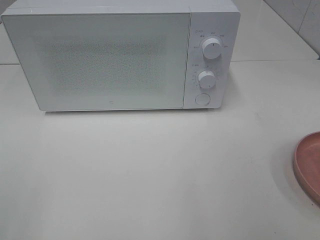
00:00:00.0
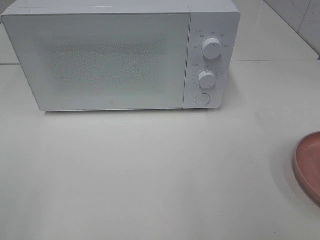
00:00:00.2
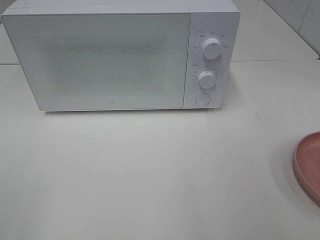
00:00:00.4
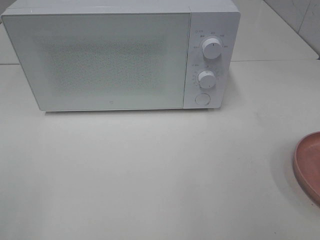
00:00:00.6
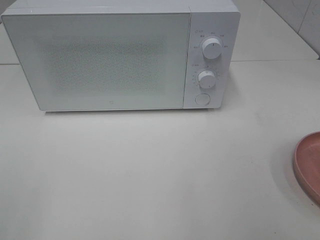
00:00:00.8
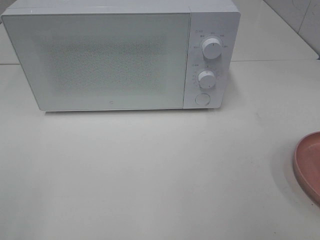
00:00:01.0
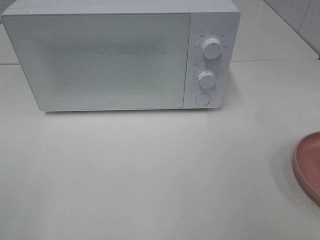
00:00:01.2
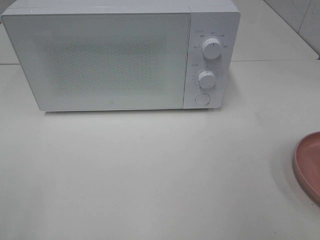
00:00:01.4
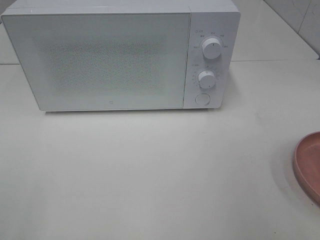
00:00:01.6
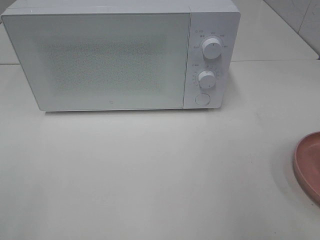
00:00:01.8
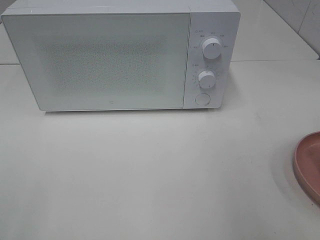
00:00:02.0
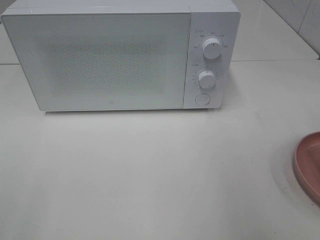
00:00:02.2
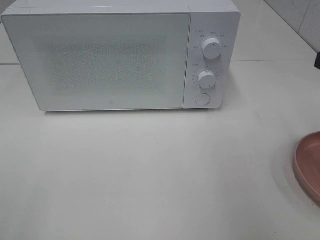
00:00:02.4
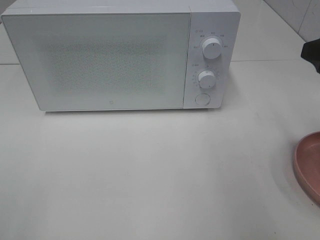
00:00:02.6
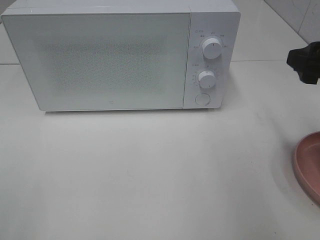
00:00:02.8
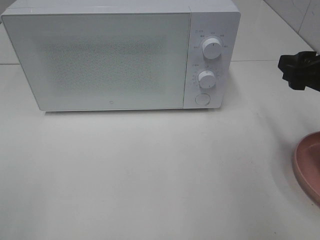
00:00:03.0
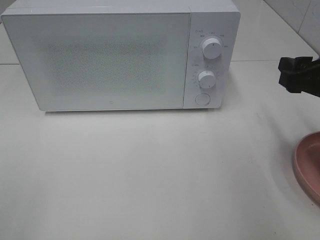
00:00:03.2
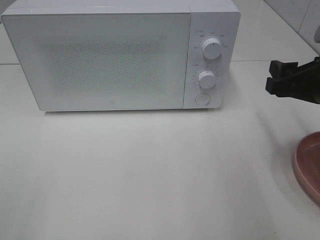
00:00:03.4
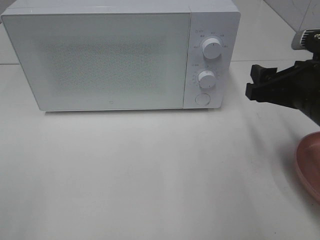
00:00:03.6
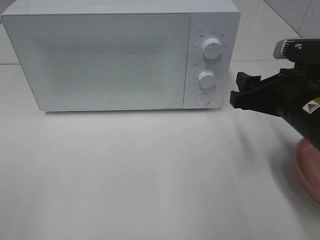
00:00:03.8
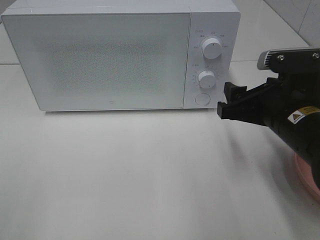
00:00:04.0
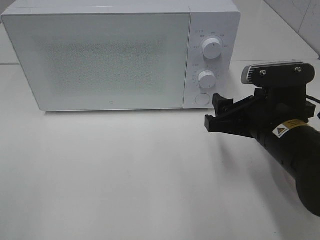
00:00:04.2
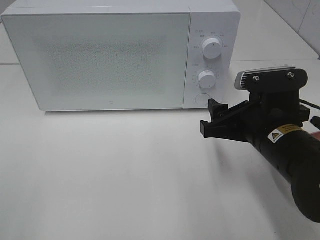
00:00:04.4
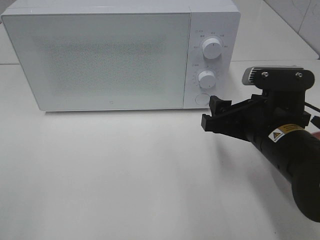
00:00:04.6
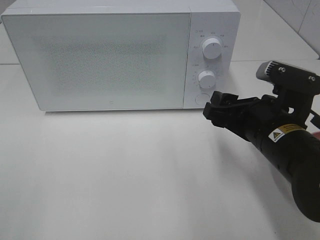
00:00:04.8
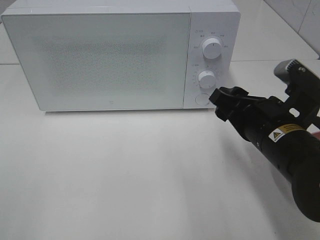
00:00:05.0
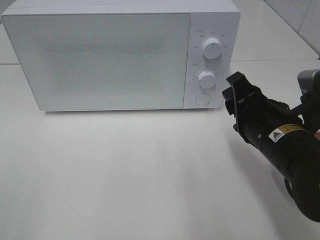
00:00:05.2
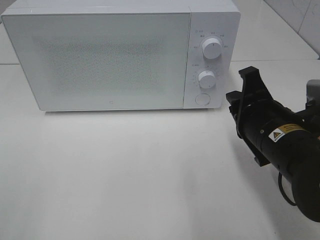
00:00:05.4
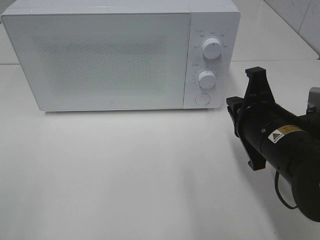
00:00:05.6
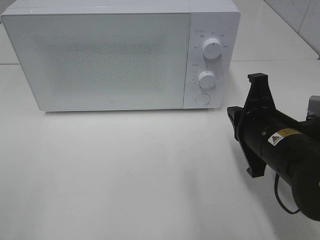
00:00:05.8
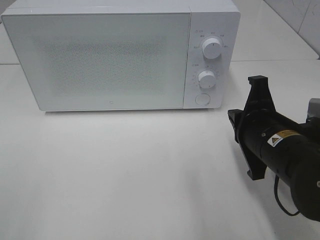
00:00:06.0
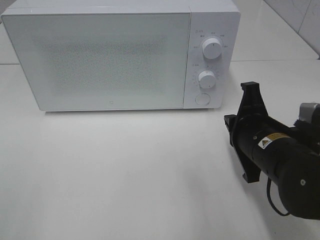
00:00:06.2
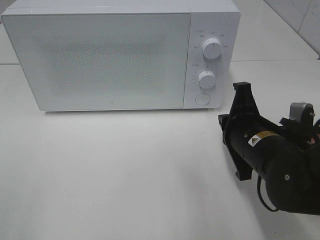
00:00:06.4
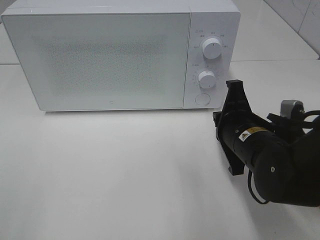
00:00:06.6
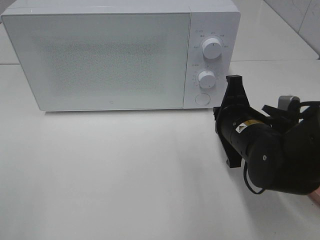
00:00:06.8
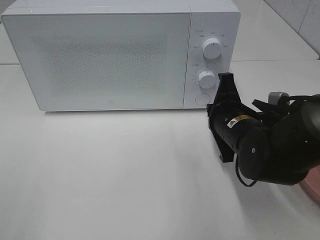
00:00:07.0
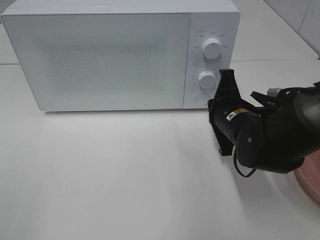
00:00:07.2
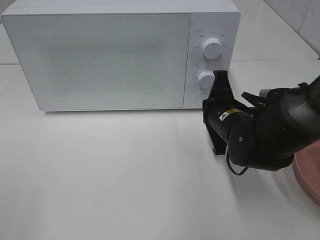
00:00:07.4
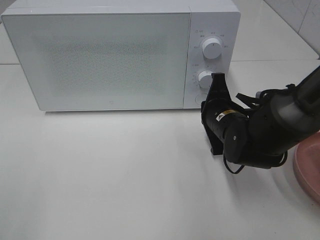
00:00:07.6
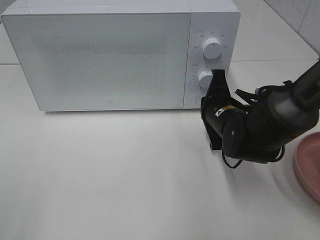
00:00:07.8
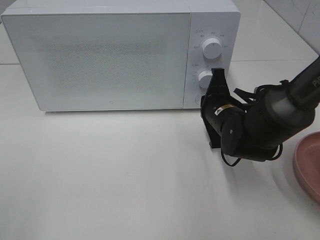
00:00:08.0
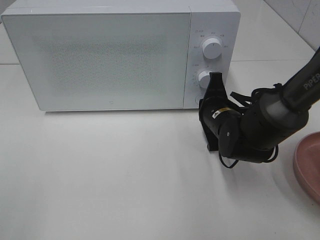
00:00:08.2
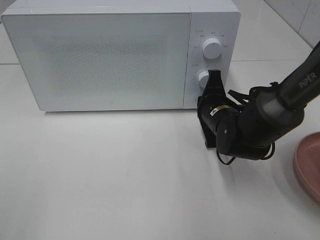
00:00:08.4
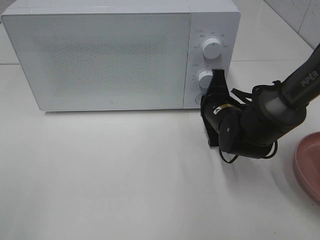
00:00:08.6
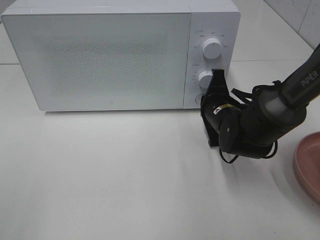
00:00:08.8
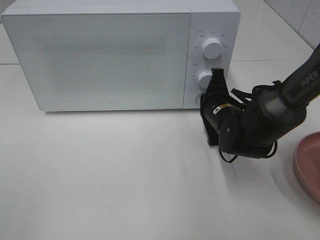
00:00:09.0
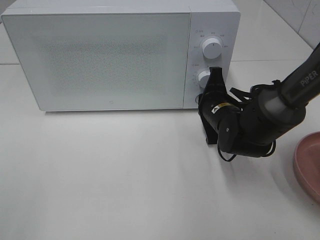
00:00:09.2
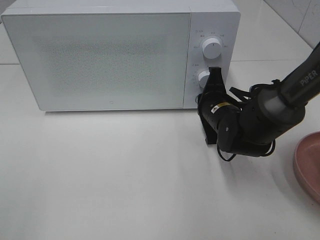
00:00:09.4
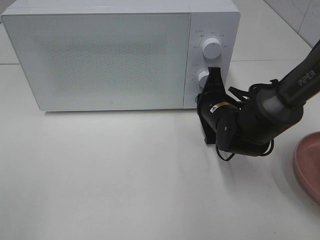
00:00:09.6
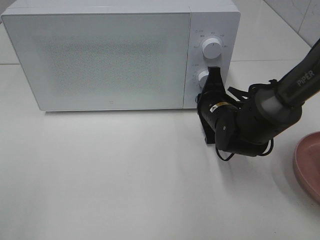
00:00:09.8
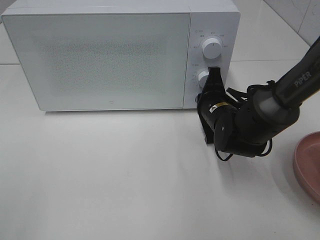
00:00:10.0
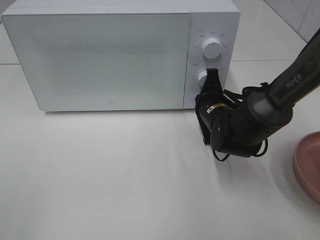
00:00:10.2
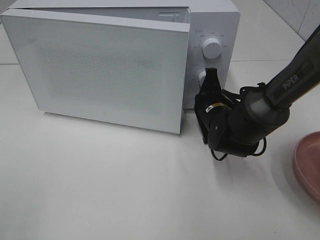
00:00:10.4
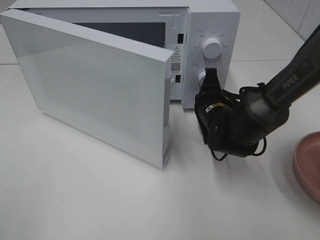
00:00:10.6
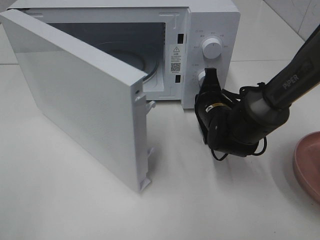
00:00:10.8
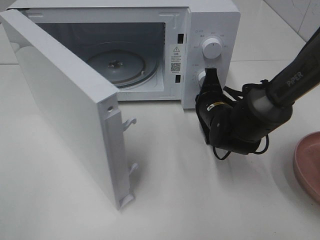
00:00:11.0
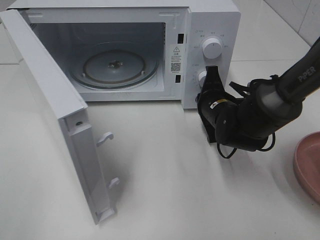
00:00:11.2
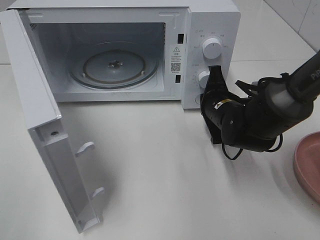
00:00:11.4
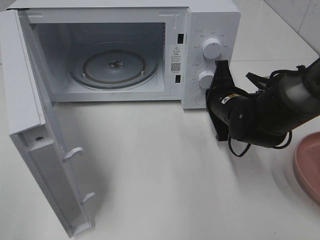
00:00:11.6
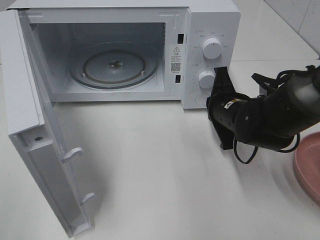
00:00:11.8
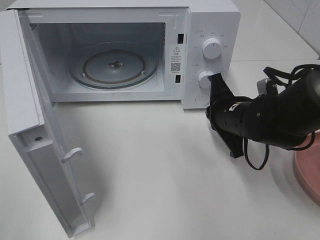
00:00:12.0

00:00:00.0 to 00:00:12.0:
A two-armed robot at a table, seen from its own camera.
Task of the whole recording: Heat the burger.
Step, 00:00:00.0 to 00:00:11.6: Right hand: press the switch.
00:00:01.6 to 00:00:03.0: The right gripper shifts some 20 cm forward and downward.
00:00:03.0 to 00:00:04.4: The right gripper moves to the left and downward, some 15 cm.
00:00:04.4 to 00:00:06.0: The right gripper closes.
00:00:06.0 to 00:00:07.6: The right gripper moves forward and downward, roughly 10 cm.
00:00:07.6 to 00:00:10.4: There are only small adjustments of the grippers.
00:00:10.4 to 00:00:12.0: The right gripper shifts by approximately 5 cm.

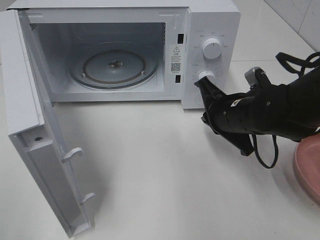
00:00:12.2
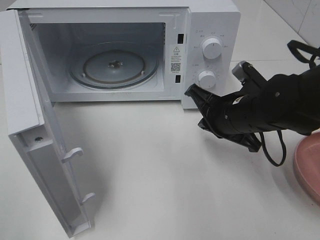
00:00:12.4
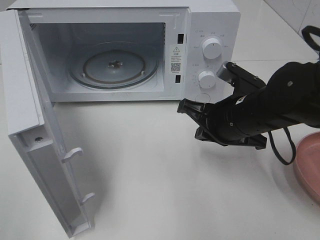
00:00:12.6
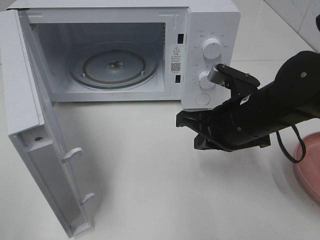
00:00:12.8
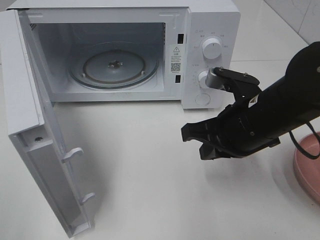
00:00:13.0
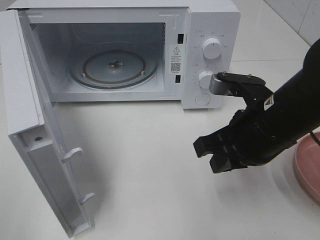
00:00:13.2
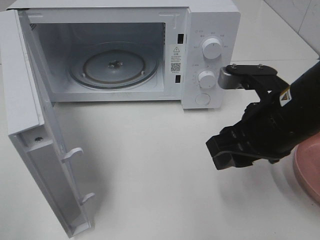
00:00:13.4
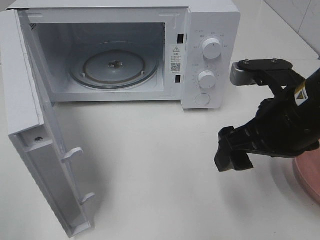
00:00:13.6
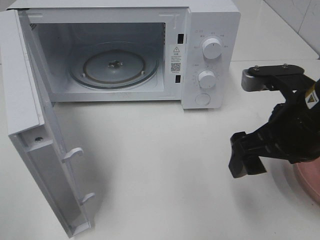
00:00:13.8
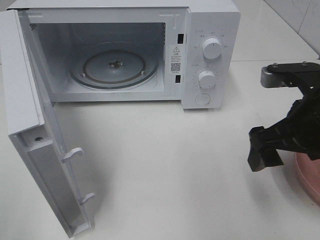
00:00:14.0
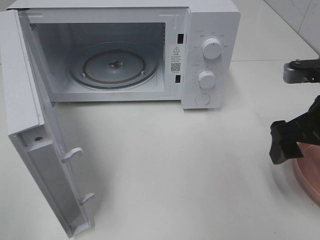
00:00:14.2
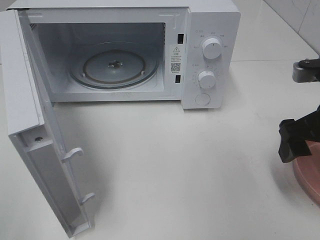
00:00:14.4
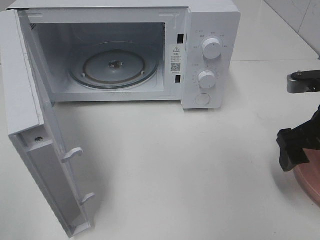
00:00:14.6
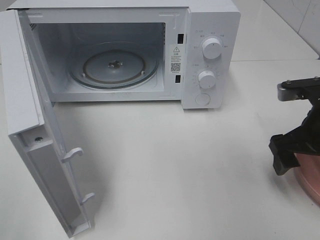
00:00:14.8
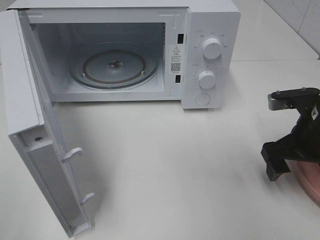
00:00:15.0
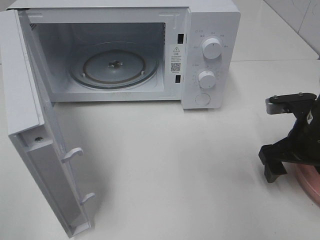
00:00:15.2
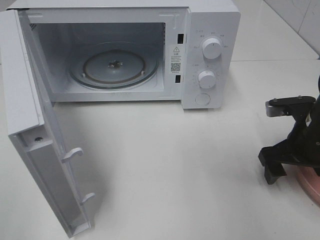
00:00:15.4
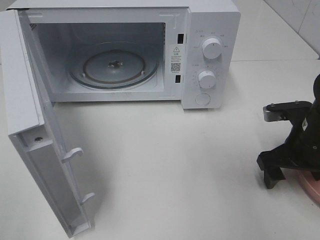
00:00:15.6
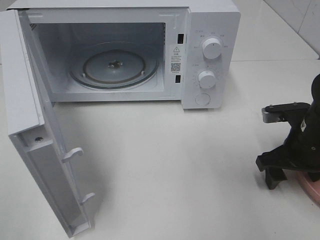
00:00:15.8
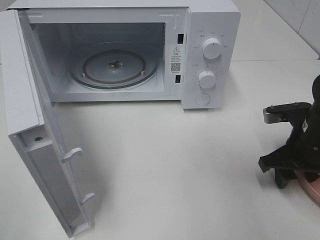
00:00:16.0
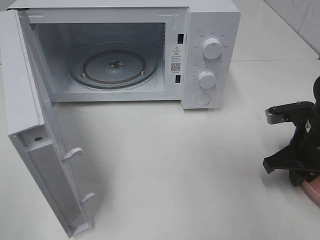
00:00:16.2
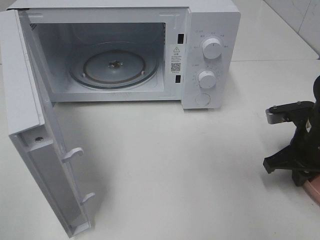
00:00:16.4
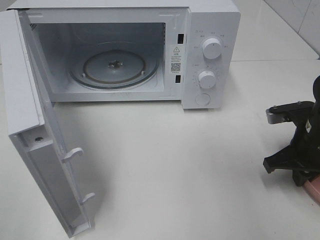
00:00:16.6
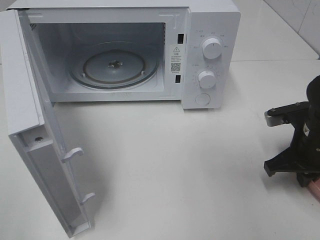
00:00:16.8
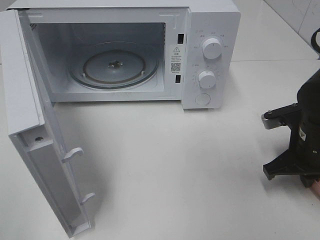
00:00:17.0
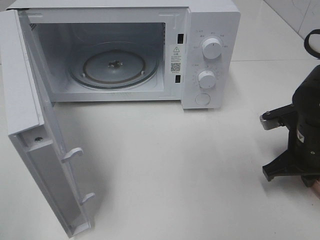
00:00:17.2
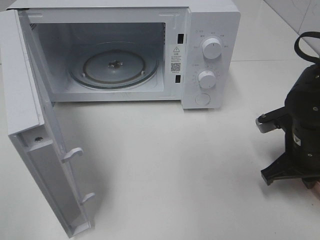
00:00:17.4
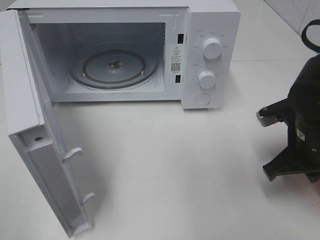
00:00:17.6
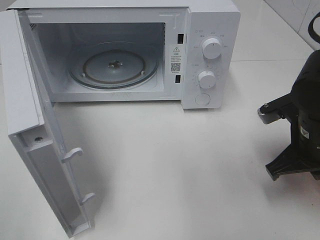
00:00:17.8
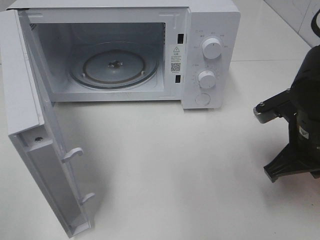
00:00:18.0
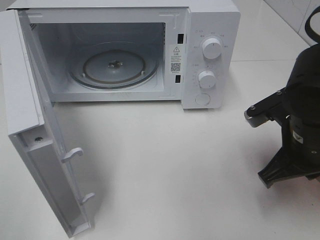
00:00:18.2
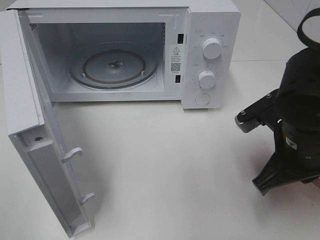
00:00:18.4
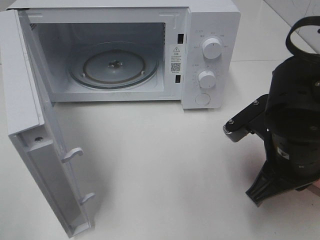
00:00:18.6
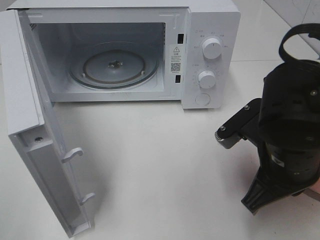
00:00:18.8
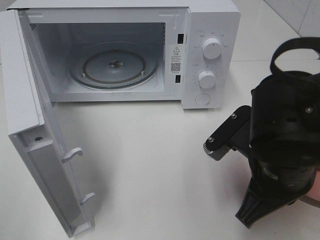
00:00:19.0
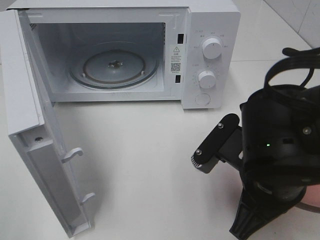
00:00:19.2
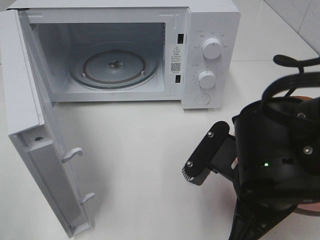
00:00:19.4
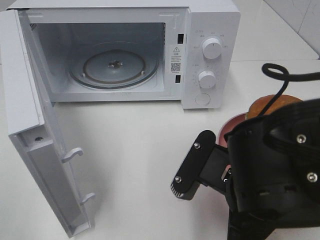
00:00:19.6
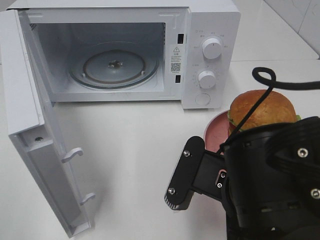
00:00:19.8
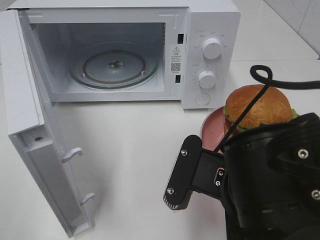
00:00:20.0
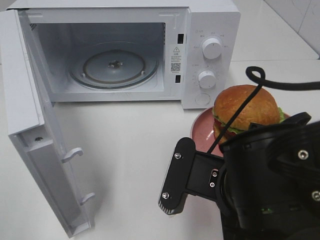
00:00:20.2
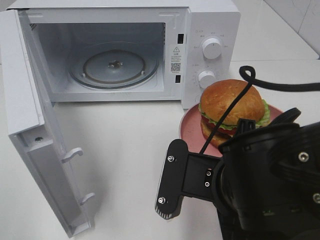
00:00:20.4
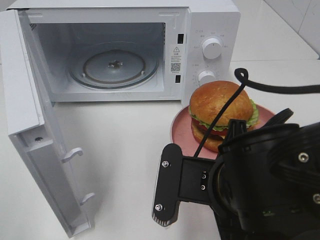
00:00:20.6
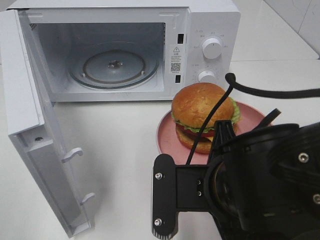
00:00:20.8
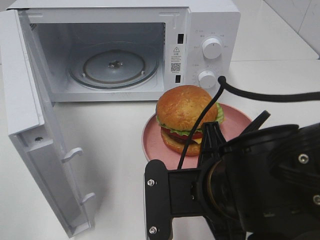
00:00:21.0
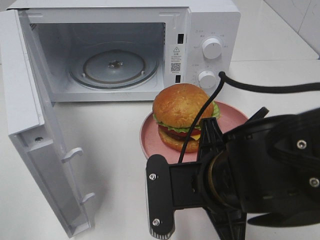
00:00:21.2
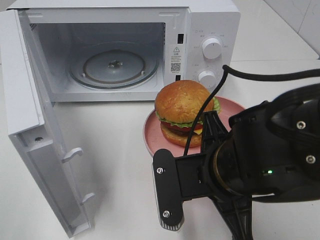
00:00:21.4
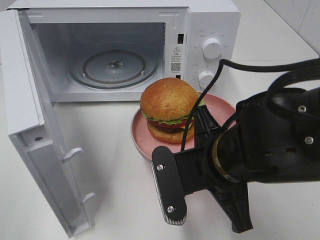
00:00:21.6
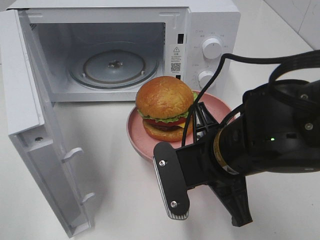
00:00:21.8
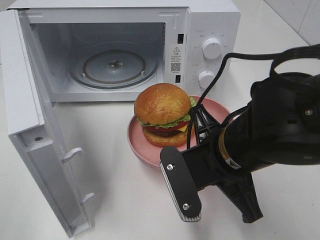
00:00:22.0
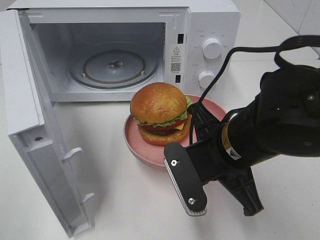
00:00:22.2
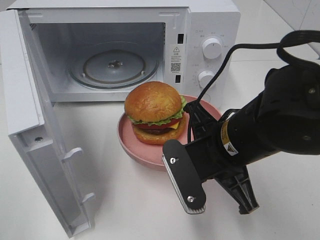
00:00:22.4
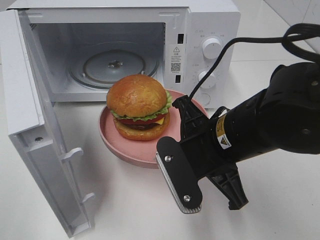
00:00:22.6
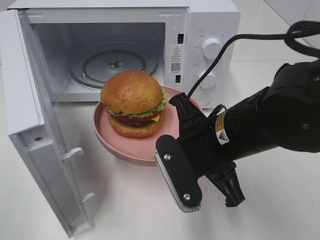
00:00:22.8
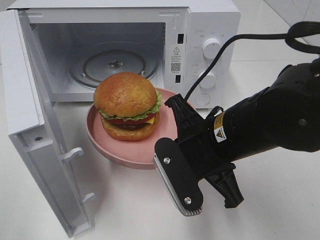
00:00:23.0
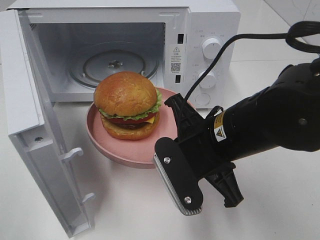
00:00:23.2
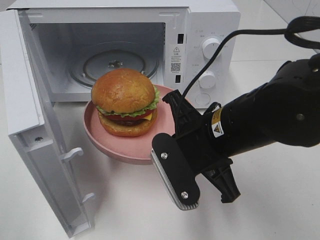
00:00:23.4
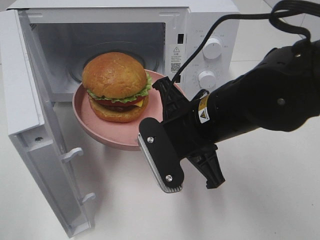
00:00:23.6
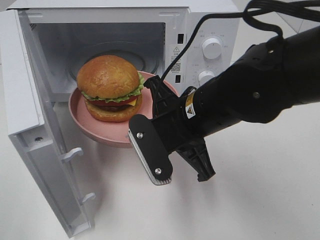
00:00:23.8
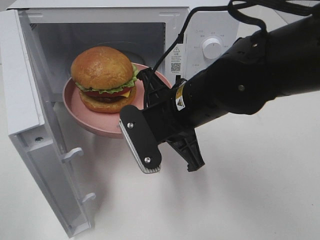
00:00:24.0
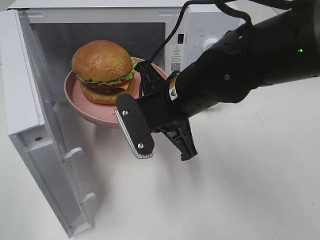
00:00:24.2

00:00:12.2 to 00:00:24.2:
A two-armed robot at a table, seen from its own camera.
Task of the whole recording: Heat the burger.
Step, 00:00:12.2 to 00:00:17.8: Right hand: grab the plate with the hamburger.
00:00:12.2 to 00:00:13.8: The right gripper travels upward and backward by approximately 10 cm, and opens up.
00:00:13.8 to 00:00:15.2: The right gripper goes approximately 10 cm downward, to the right and forward.
00:00:15.2 to 00:00:16.6: The right gripper closes up.
00:00:16.6 to 00:00:18.2: The right gripper moves to the left and upward, approximately 10 cm.
00:00:18.2 to 00:00:19.8: The right gripper travels to the left and backward by roughly 15 cm.
00:00:21.2 to 00:00:22.6: The right gripper is displaced forward by about 5 cm.
00:00:22.6 to 00:00:24.2: The right gripper travels forward and to the left by approximately 10 cm.
